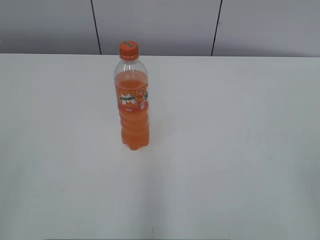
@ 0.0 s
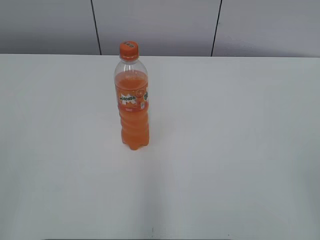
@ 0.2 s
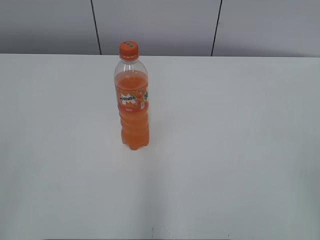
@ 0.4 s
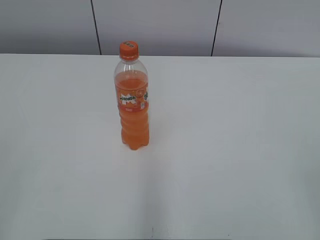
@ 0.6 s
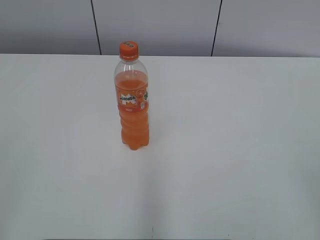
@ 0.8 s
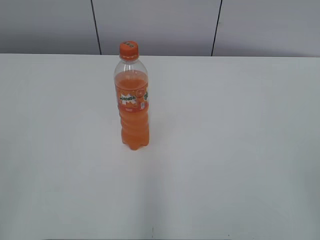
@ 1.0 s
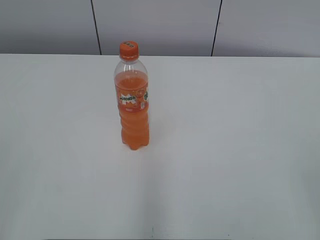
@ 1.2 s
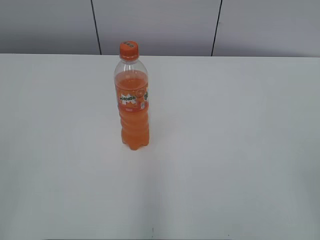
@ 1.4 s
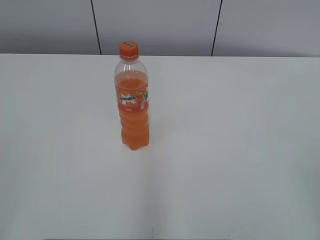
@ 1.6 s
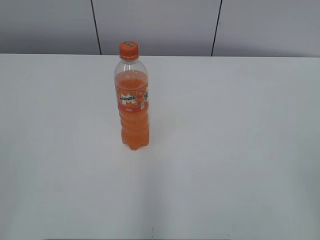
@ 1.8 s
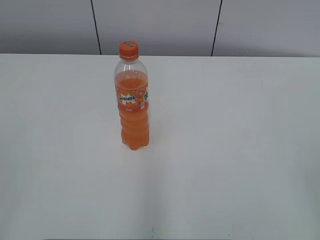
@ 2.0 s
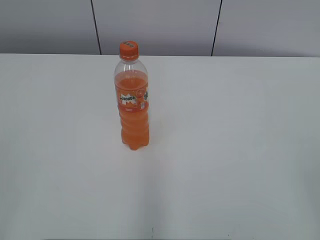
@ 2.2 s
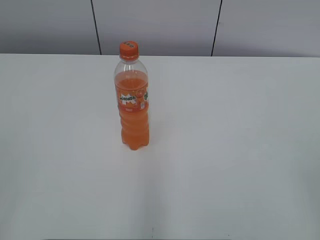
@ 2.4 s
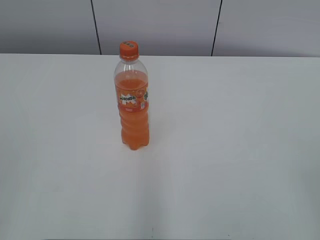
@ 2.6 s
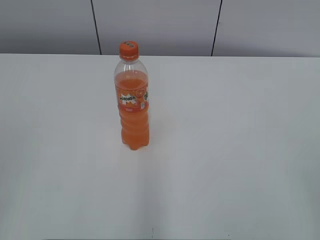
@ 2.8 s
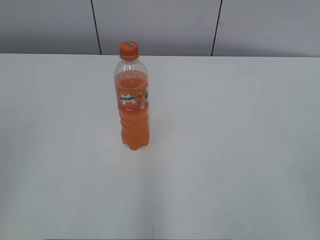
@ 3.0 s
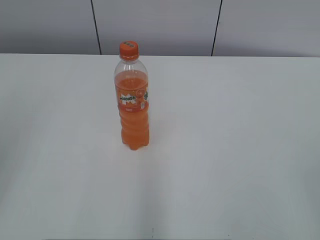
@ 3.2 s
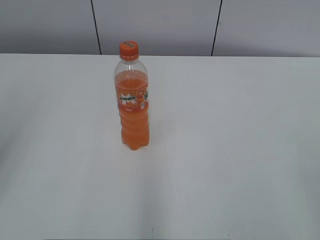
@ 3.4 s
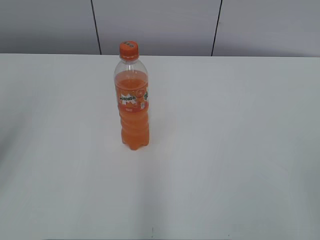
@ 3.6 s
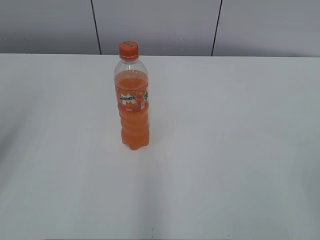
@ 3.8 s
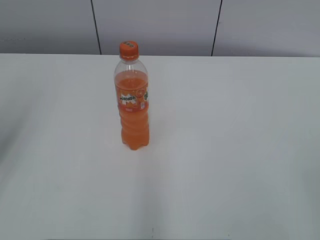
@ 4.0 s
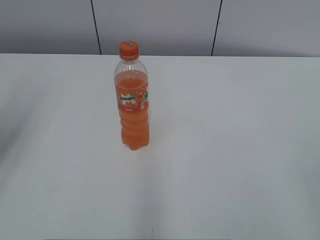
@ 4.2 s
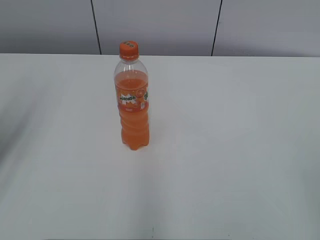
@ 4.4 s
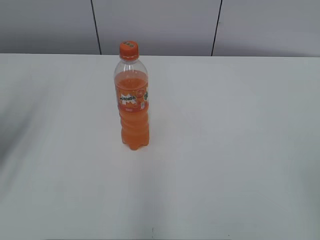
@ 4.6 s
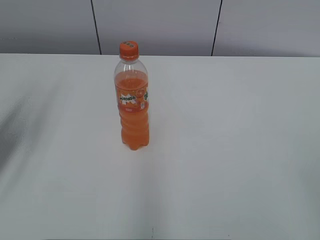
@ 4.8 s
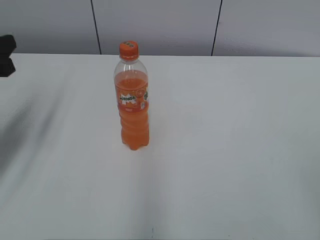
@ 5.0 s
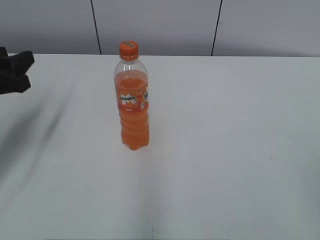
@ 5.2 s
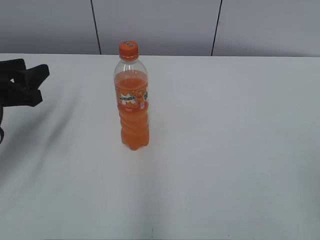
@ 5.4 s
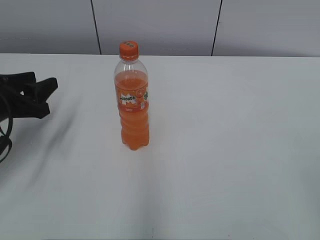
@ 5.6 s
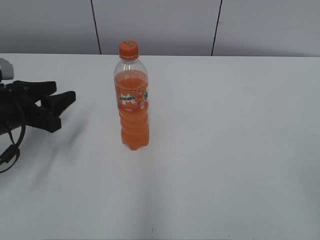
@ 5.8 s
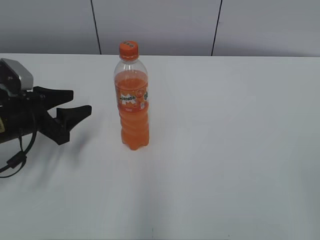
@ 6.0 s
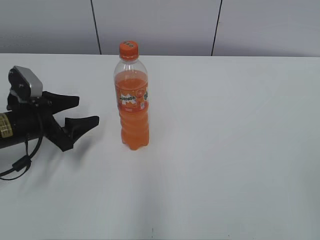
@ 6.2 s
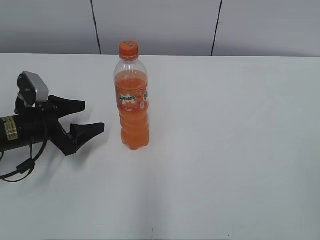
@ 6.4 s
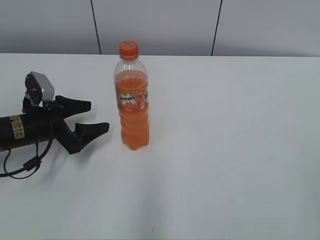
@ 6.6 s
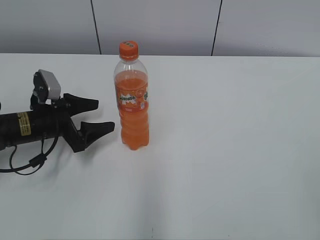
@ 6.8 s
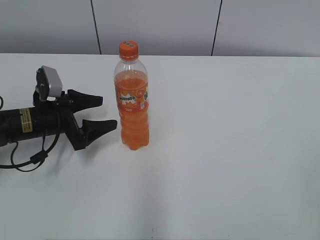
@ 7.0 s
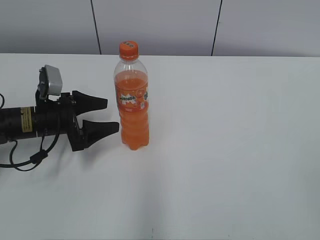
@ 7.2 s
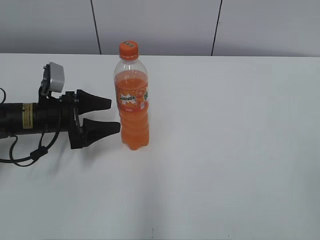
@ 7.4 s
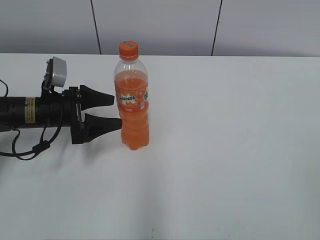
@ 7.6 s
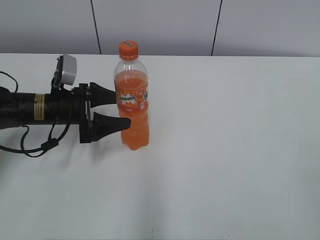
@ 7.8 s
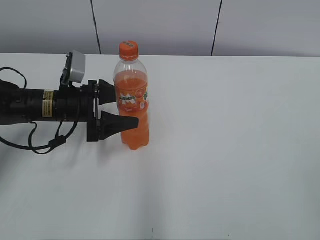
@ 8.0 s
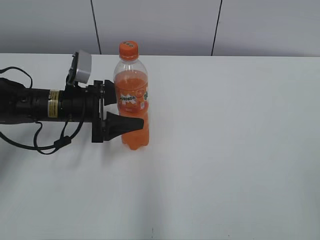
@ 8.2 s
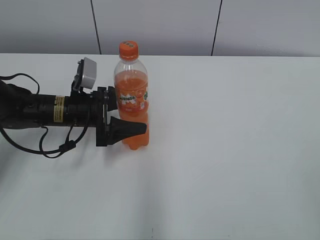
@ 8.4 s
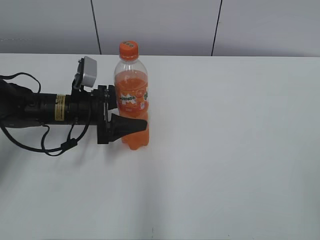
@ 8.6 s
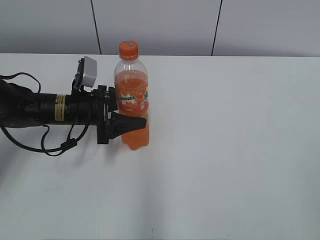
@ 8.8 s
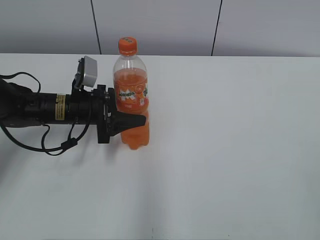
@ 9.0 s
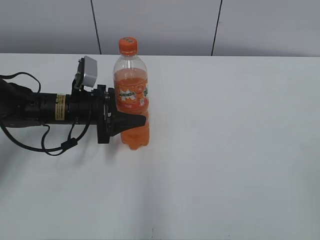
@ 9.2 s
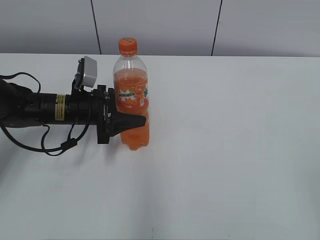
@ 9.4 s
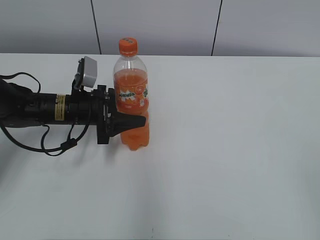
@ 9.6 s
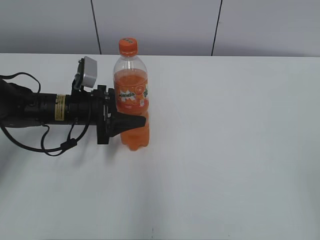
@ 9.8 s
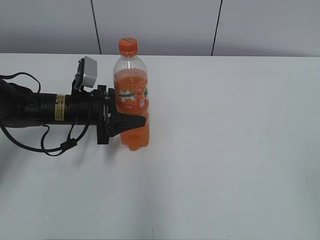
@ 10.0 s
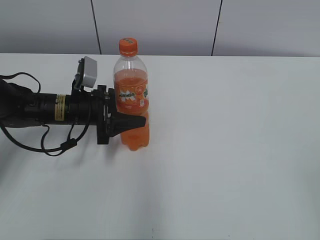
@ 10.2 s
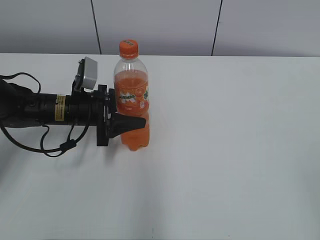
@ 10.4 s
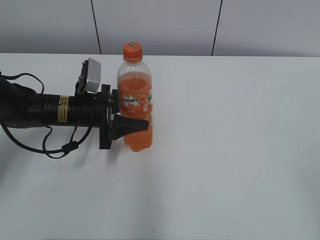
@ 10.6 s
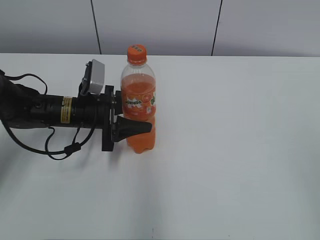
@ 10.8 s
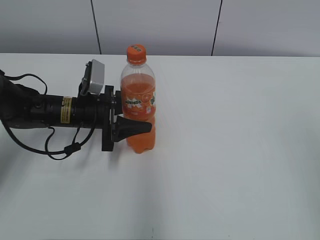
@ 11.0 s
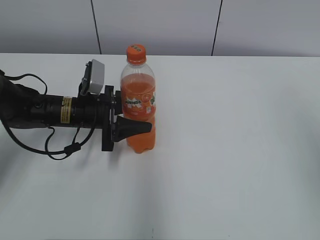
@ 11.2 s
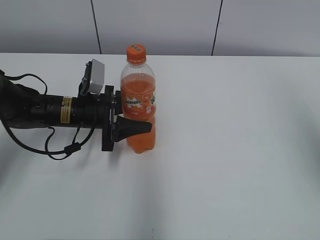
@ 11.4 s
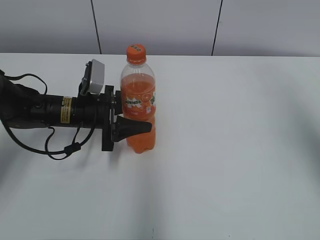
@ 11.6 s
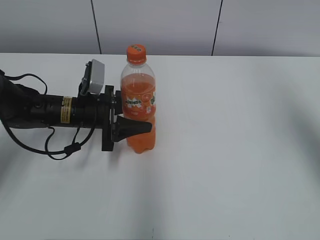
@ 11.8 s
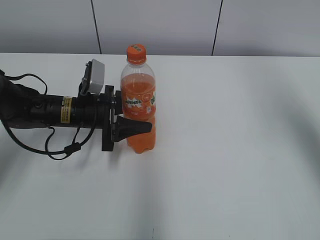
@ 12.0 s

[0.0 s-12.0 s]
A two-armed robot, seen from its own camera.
Step, 0.0 to 9.2 s: Grab the Mirinda with the left hand.
Step, 9.4 to 10.6 s: Move the Mirinda from left to right.
4.4 to 6.0 s: The left gripper goes roughly 20 cm downward and forward.
6.0 to 7.6 s: The left gripper moves approximately 5 cm, and opens.
7.6 to 9.0 s: The left gripper closes.
9.0 to 10.4 s: Neither gripper changes place.
10.4 to 12.0 s: The right gripper travels forward and upward by roughly 30 cm, and closes.

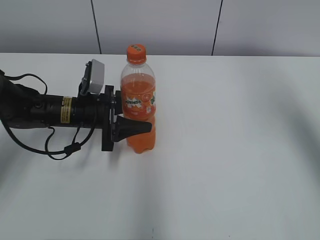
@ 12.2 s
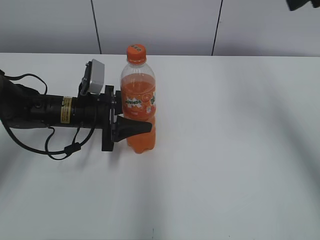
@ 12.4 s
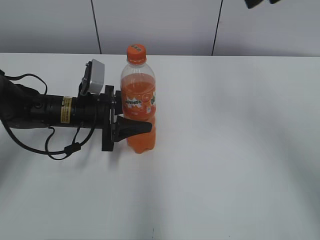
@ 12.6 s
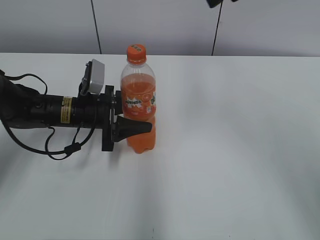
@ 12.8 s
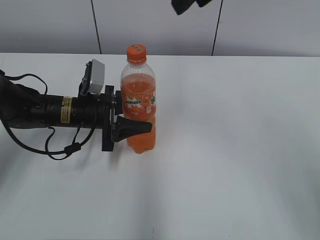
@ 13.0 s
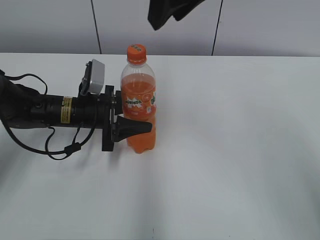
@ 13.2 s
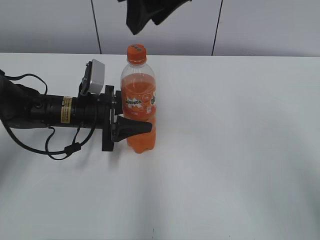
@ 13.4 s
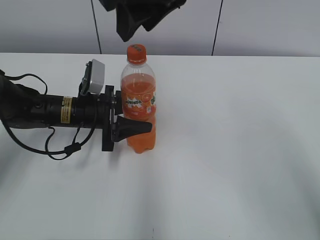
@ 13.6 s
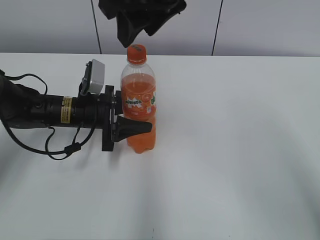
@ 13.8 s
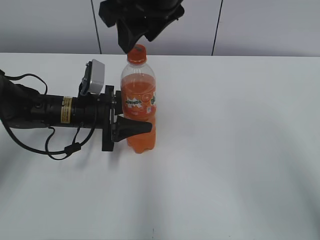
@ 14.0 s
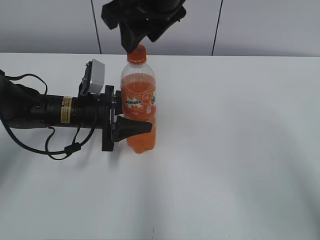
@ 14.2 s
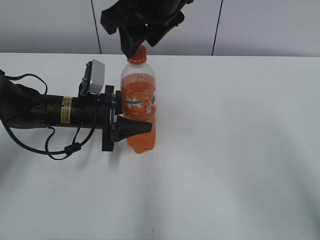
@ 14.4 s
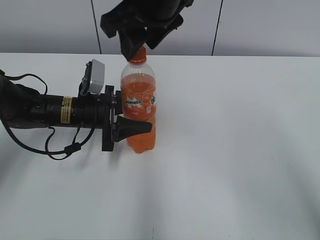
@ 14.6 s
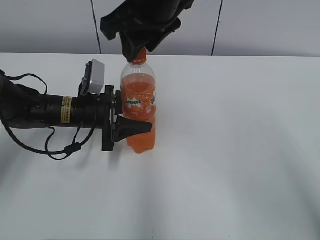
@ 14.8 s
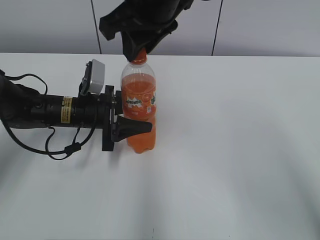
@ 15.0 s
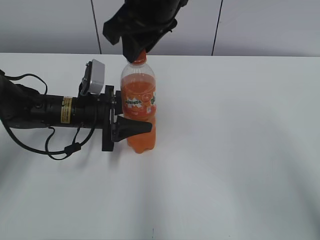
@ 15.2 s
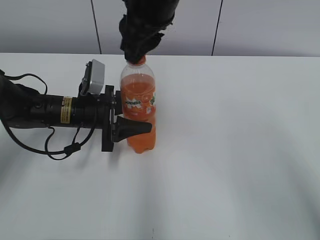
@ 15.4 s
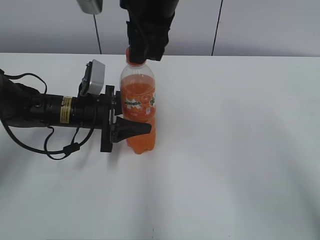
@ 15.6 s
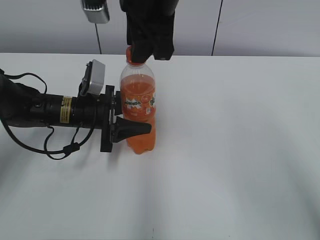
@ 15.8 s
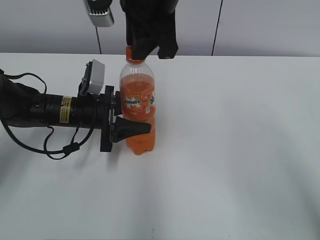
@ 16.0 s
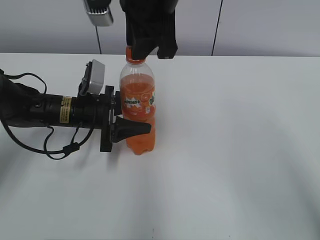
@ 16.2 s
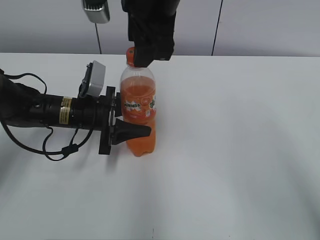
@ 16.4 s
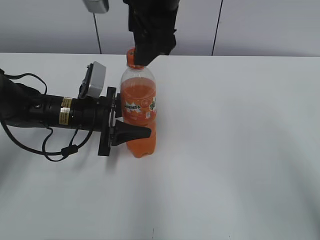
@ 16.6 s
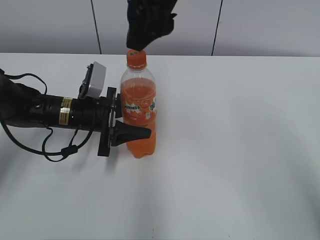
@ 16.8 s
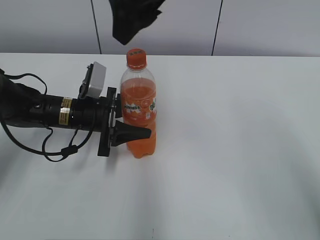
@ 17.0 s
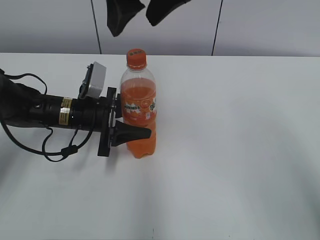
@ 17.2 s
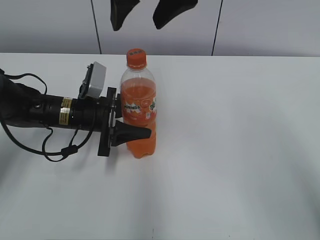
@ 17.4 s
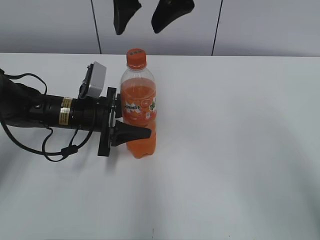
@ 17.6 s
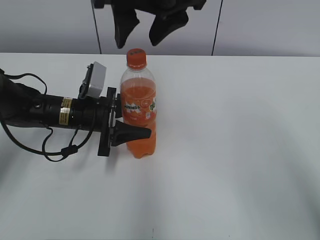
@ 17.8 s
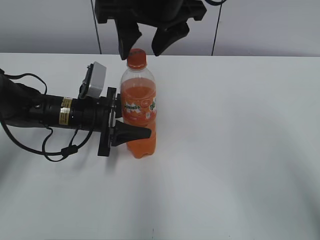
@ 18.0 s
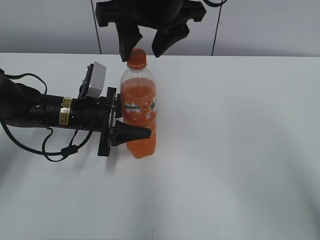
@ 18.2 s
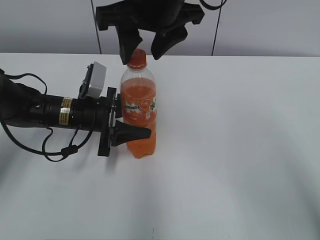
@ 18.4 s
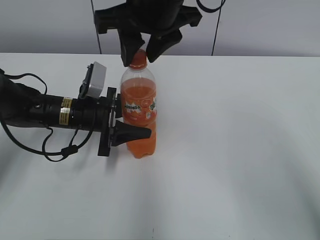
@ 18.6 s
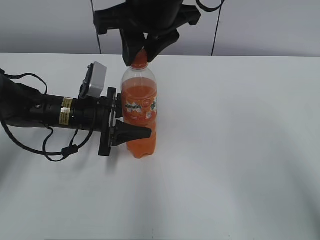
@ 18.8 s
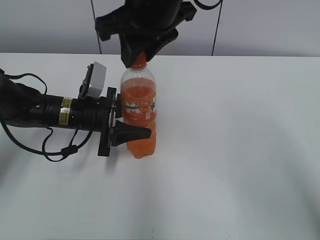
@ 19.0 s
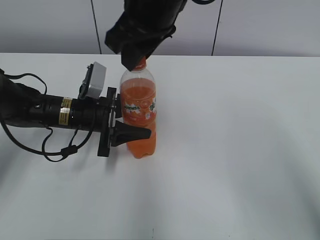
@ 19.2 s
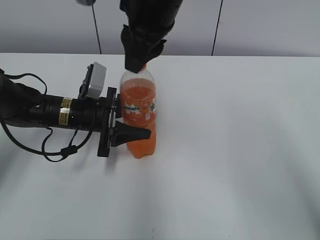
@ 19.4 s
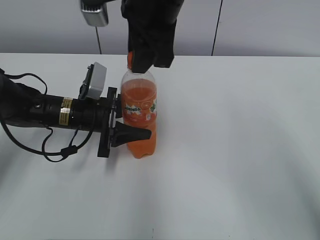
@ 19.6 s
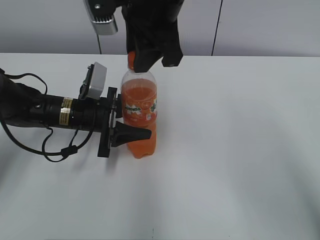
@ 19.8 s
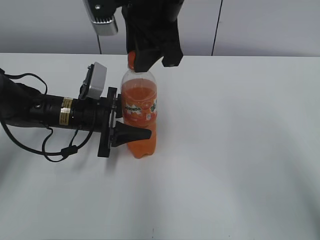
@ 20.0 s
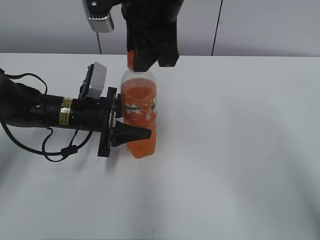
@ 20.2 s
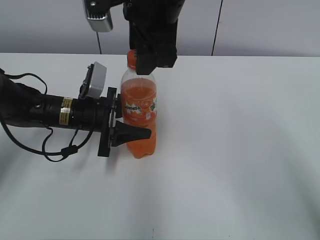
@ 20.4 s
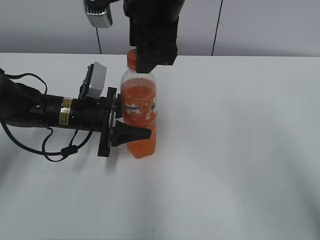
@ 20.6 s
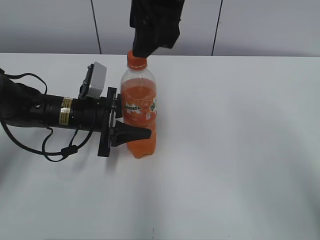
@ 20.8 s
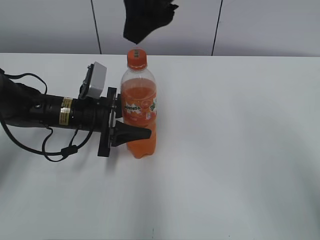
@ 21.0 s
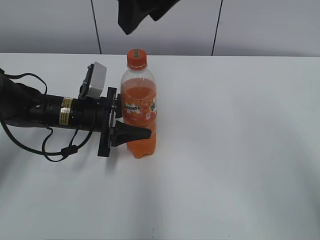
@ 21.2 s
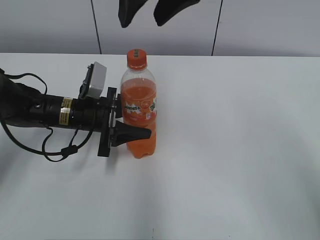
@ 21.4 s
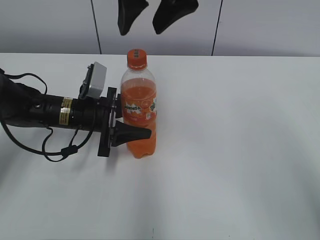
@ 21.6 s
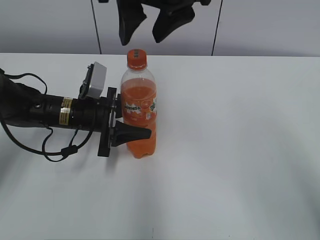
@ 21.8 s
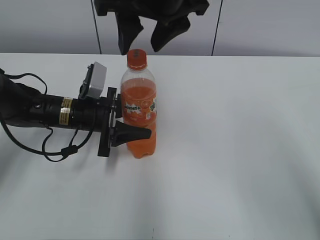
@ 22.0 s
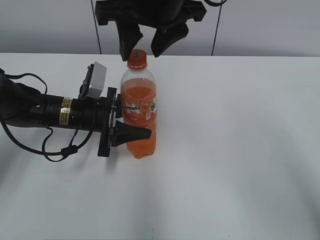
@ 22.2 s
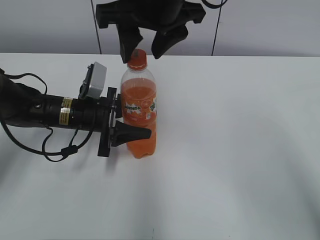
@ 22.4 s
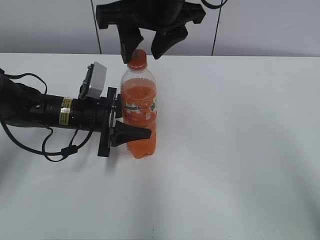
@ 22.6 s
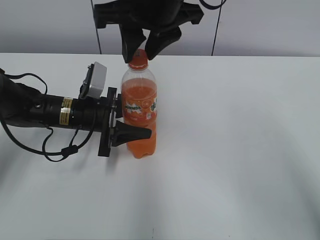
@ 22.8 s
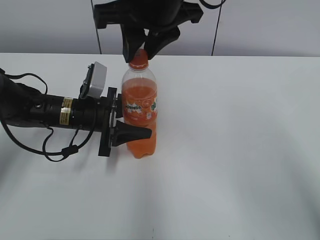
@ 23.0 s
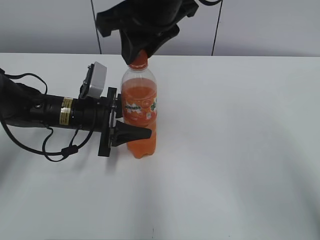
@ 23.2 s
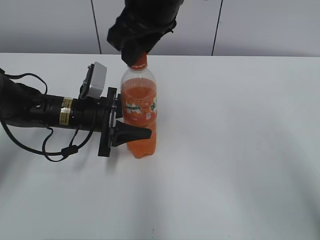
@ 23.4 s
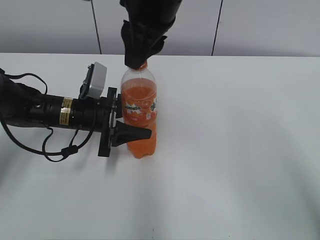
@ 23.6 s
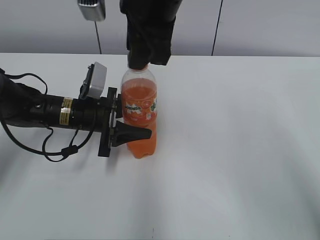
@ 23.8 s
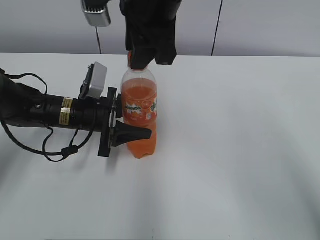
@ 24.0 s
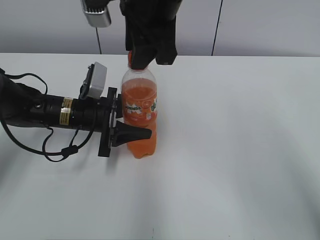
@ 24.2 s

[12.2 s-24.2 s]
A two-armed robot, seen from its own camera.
12.2 to 13.8 s: The right gripper goes about 25 cm to the left.
13.8 to 15.2 s: The right gripper closes up.
15.2 to 16.6 s: The right gripper opens its fingers.
18.2 to 19.8 s: The right gripper closes its fingers.
19.8 to 21.2 s: The right gripper goes roughly 5 cm upward, and opens.
21.2 to 22.6 s: The right gripper is displaced downward by about 5 cm.
22.6 to 24.2 s: The right gripper closes.
